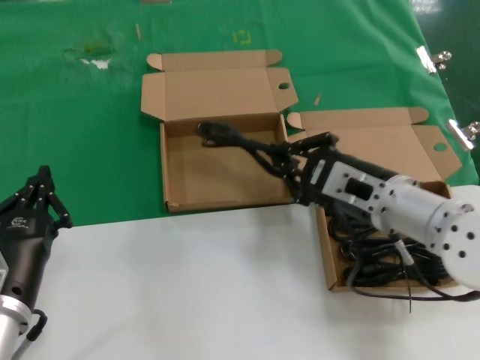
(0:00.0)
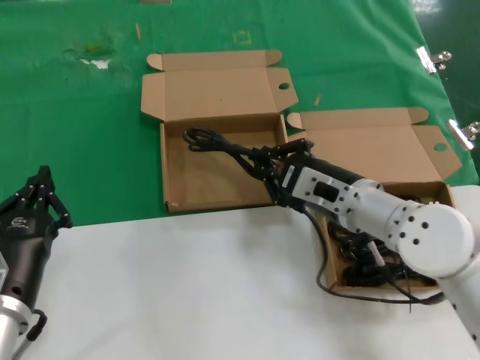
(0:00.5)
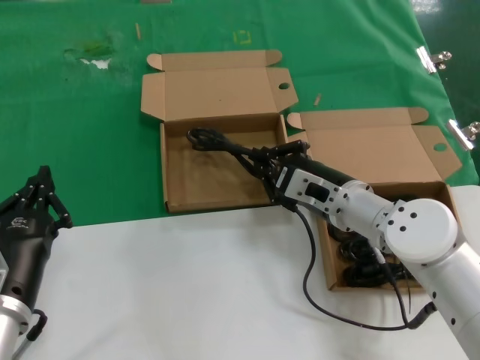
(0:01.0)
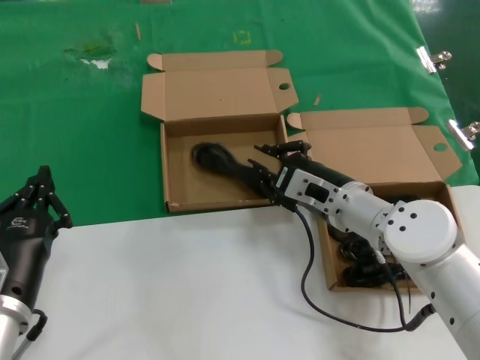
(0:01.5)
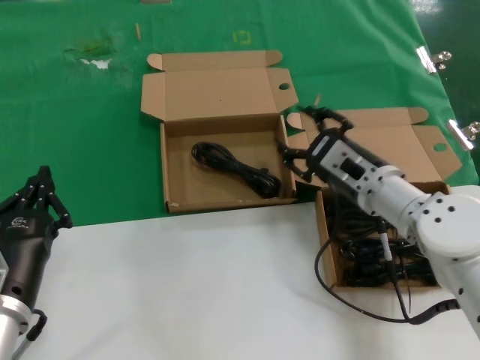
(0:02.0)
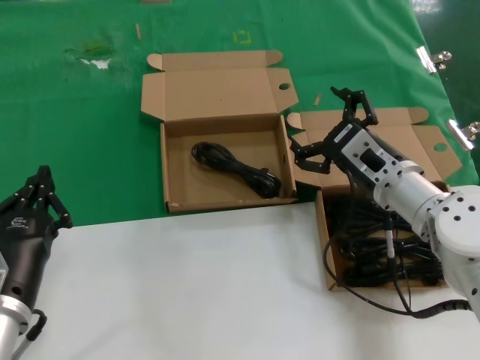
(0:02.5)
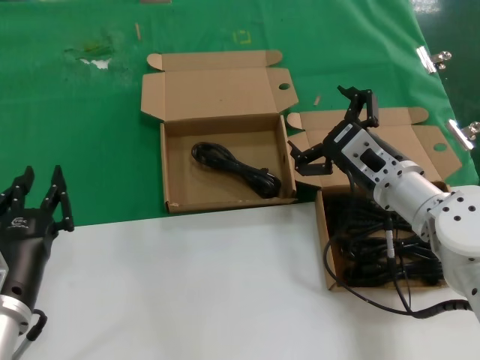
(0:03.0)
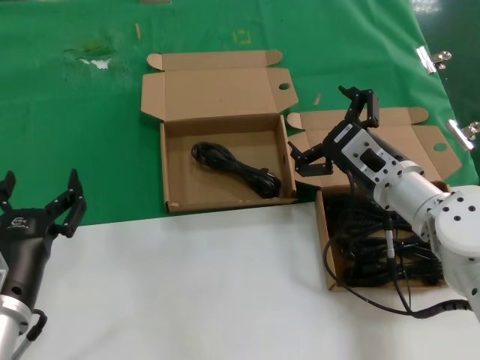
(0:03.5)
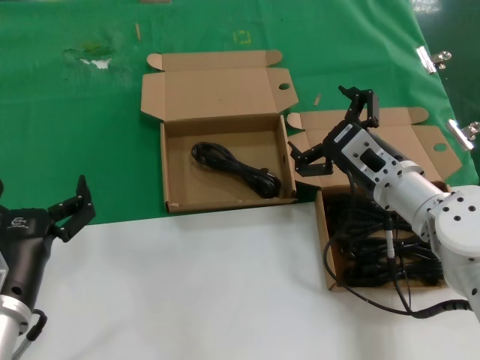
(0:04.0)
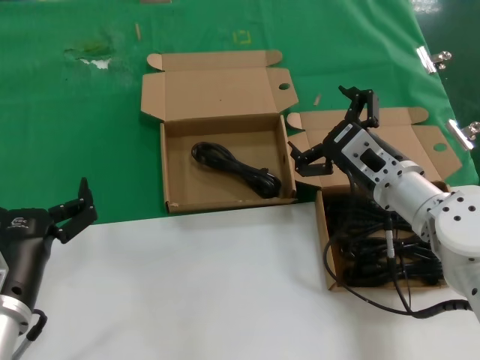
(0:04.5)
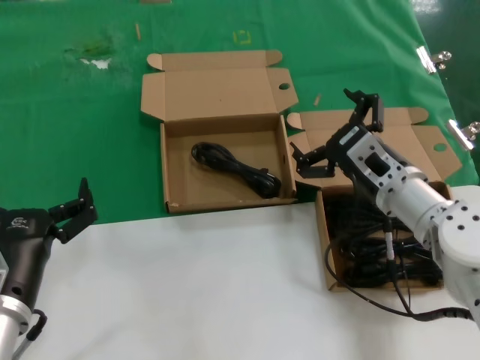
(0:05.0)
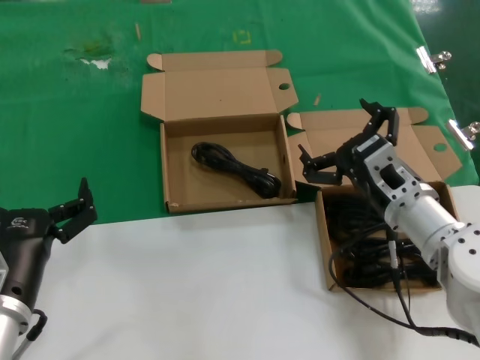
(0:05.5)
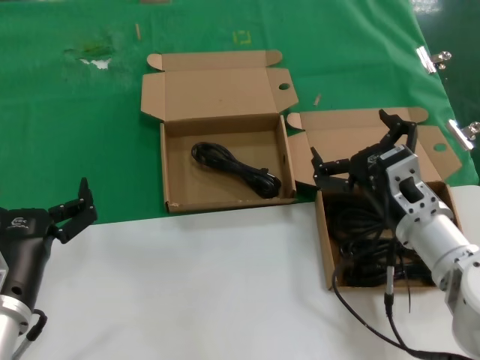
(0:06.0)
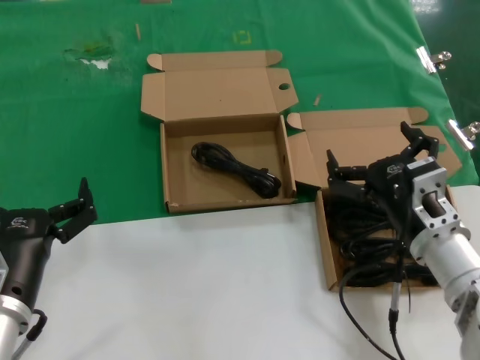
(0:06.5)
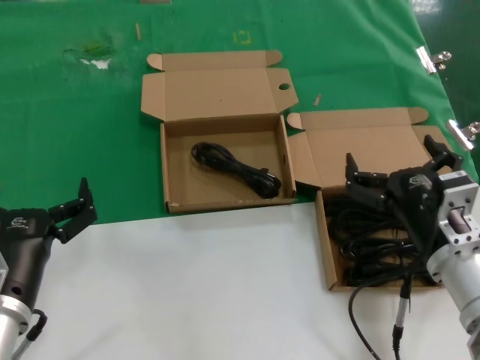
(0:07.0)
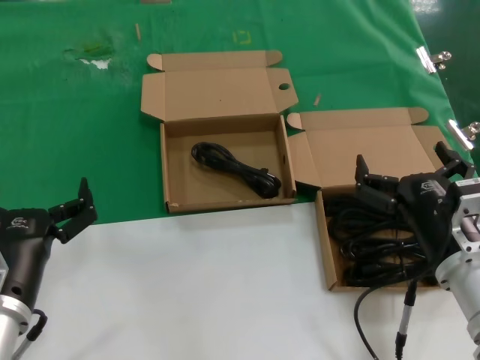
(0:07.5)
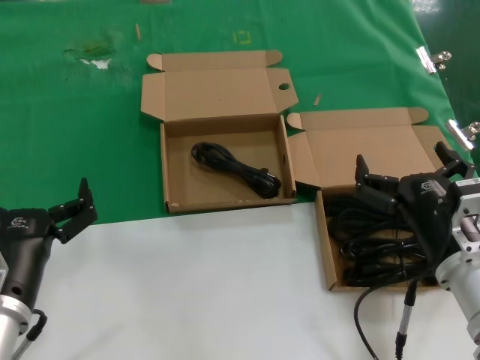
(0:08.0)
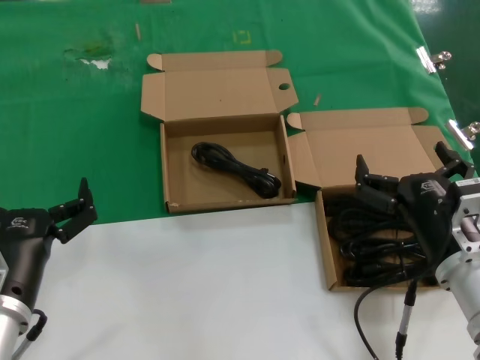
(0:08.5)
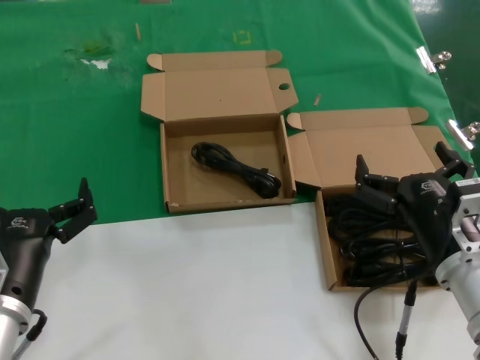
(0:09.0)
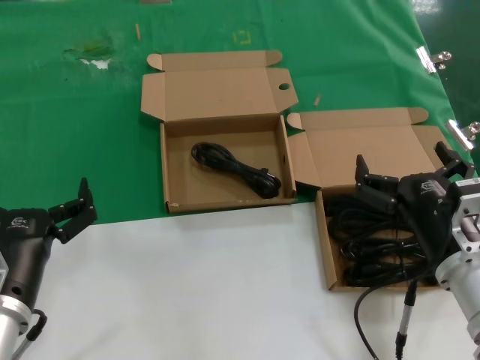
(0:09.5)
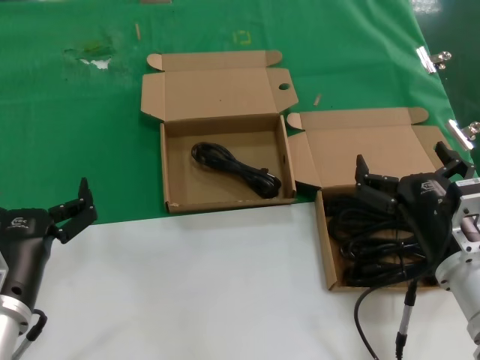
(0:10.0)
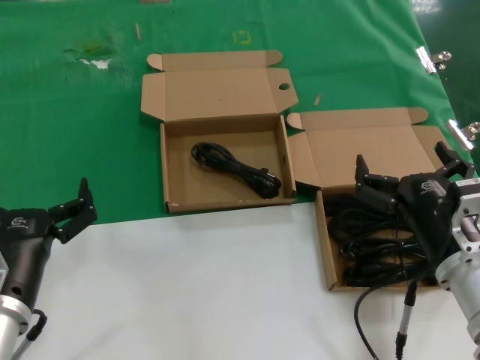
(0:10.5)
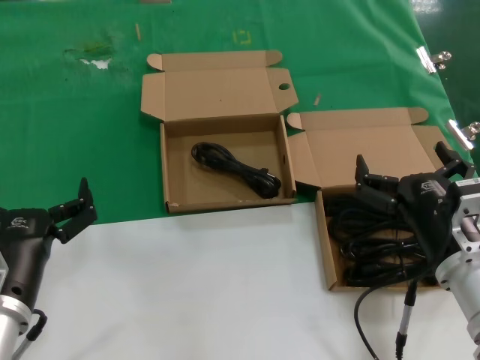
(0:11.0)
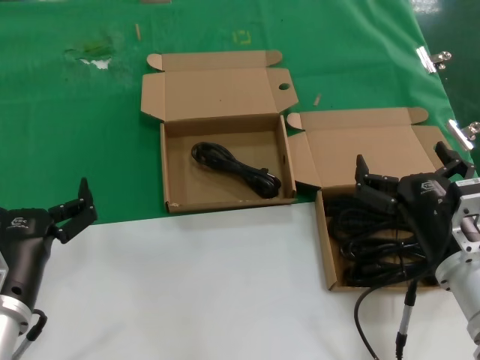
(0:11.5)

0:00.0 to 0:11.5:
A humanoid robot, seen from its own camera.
Task of the whole recording: take the parts from the box containing them and put them into an empty box.
0:00.0 to 0:02.0: The right hand is displaced forward by some 5 cm.
0:02.0 to 0:04.0: The hands move only a little.
0:04.0 to 0:06.0: The right hand goes some 5 cm backward.
0:06.0 to 0:07.5: The right hand goes about 5 cm backward.
0:07.5 to 0:11.5: Both hands stay about where they are.

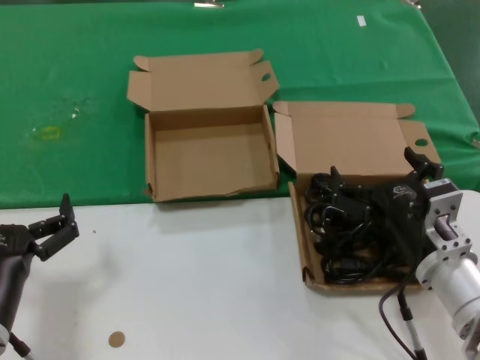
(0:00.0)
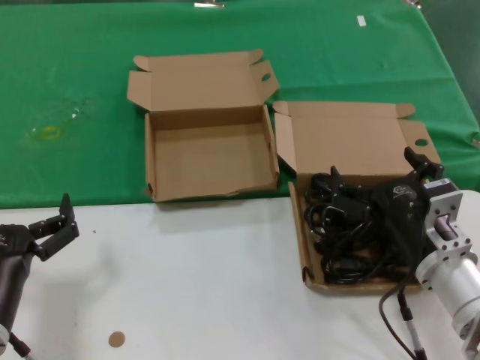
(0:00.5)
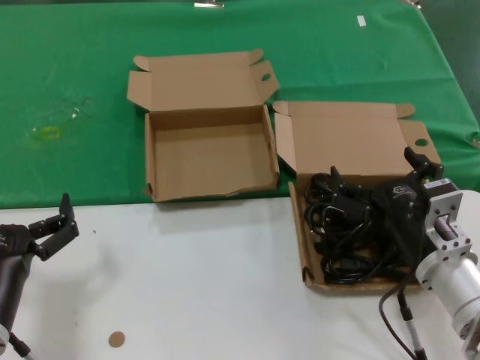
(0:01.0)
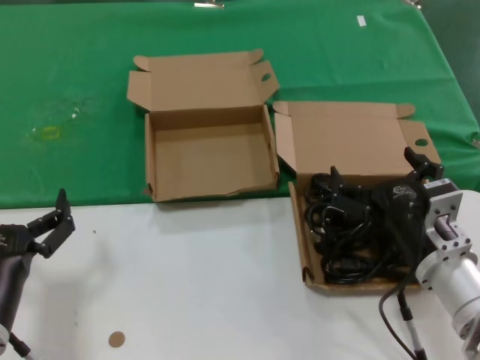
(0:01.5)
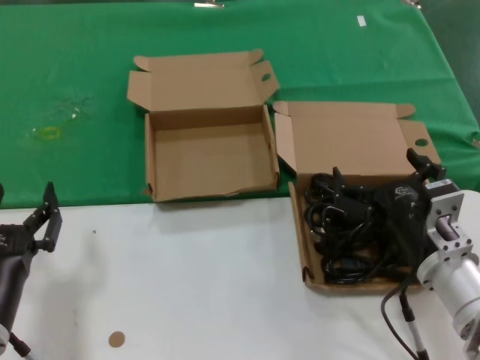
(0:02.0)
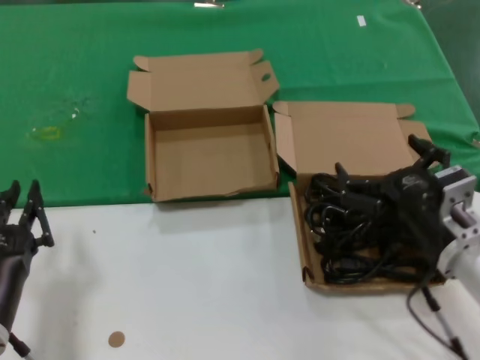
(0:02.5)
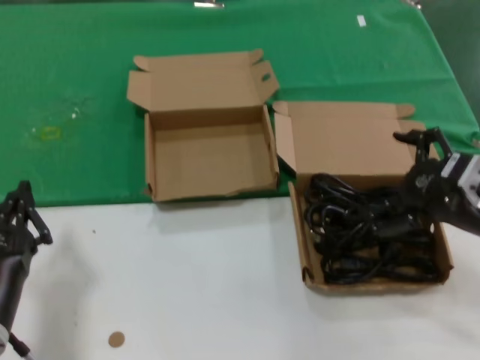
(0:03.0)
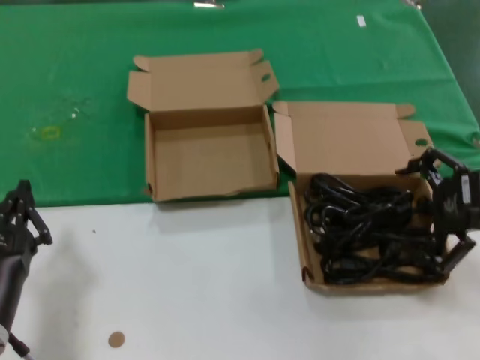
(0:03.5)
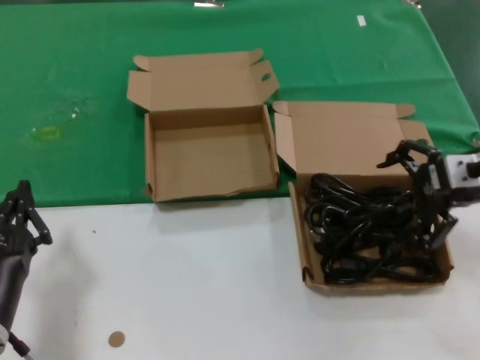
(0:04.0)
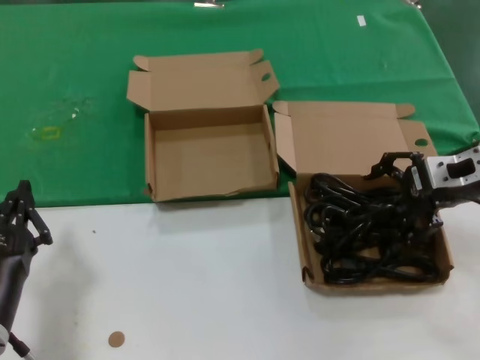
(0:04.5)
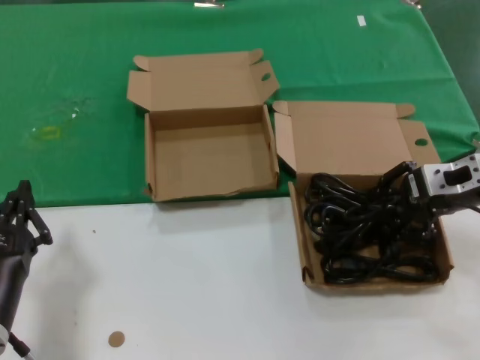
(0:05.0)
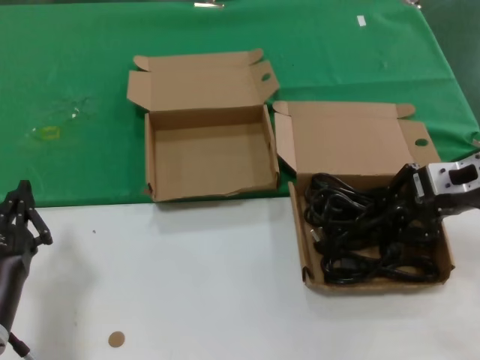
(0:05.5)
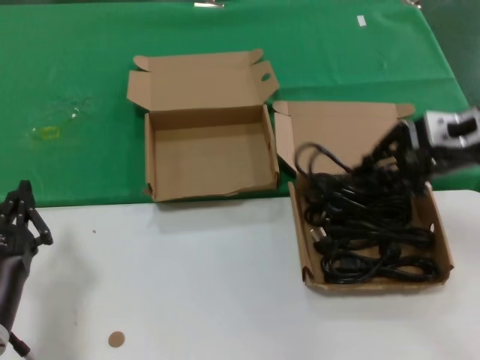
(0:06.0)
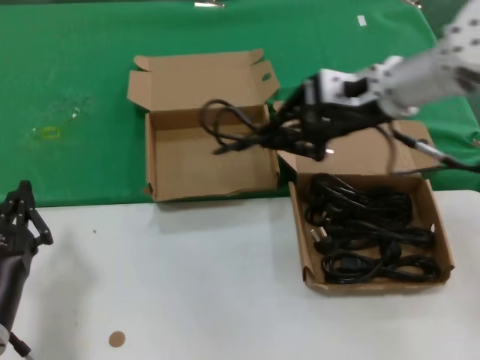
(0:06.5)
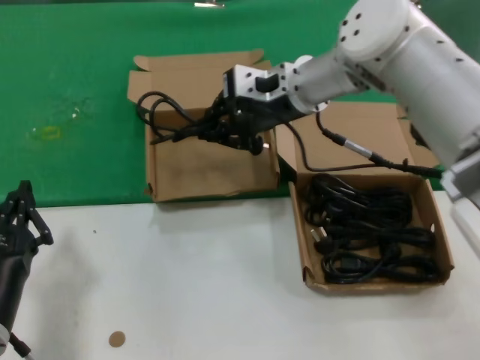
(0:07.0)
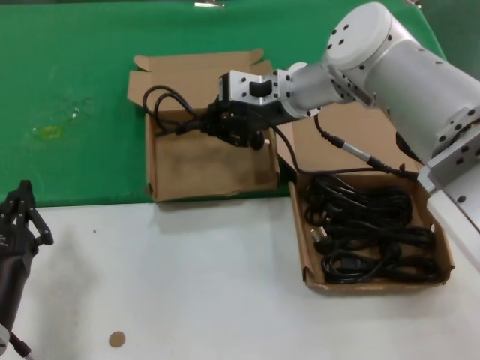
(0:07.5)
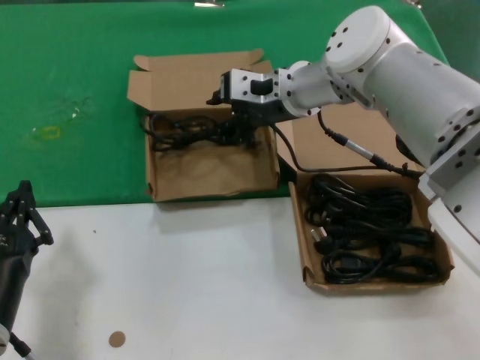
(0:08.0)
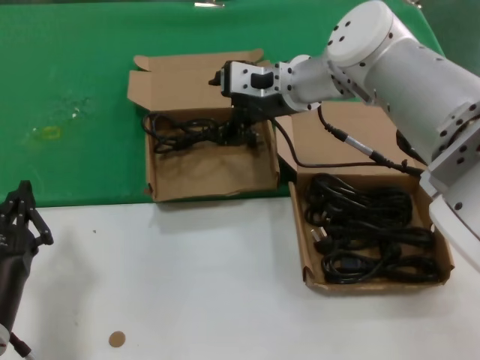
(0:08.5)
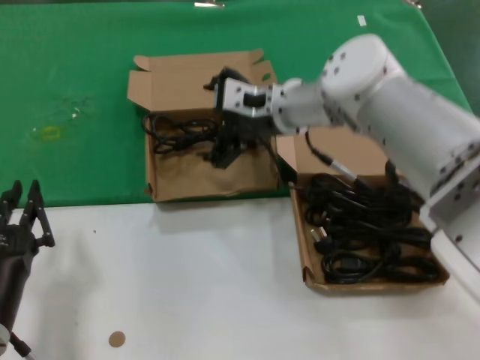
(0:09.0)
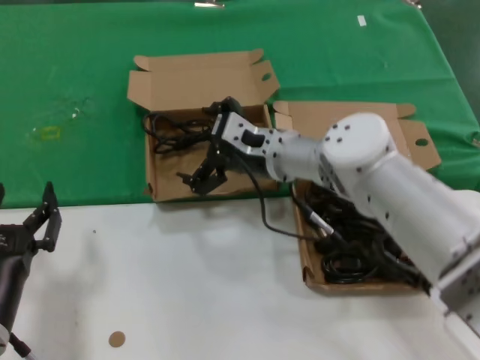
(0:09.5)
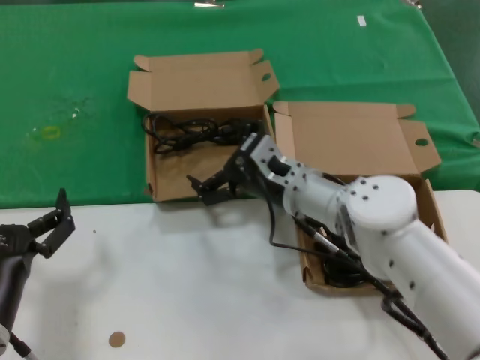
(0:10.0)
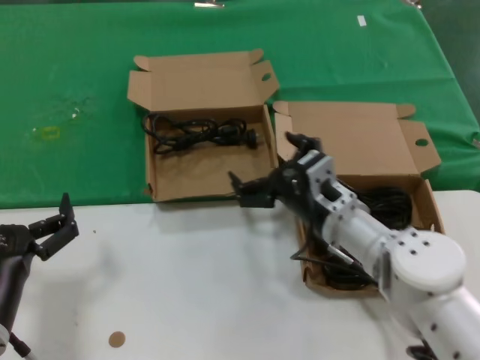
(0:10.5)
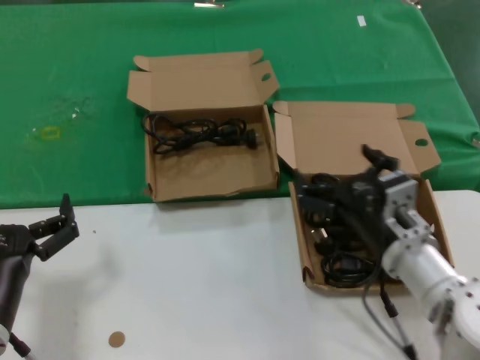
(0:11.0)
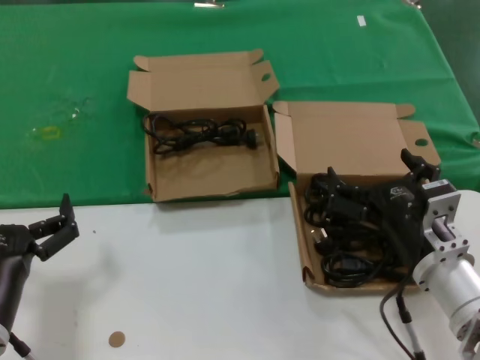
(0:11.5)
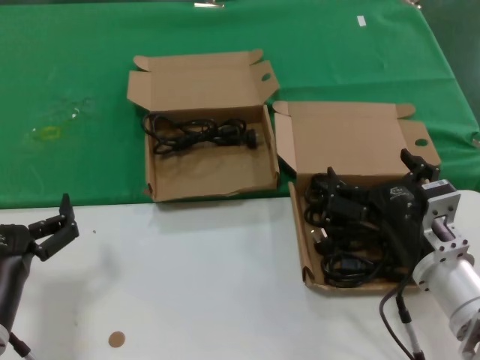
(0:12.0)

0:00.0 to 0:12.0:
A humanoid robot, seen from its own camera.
Task of the whole recording: take the parts from the box containing them and put them into an empty box.
Step, 0:00.0 to 0:05.0: Grasp the data cable.
Step, 0:05.5 to 0:08.0: Place the data cable in the another box.
0:00.0 to 0:02.0: Neither hand changes place.
0:02.0 to 0:04.0: The right hand travels upward, to the right and forward by some 20 cm.
0:04.0 to 0:06.0: The right hand shifts by approximately 5 cm.
0:06.0 to 0:08.0: The right hand goes about 25 cm to the left and forward.
0:08.0 to 0:10.0: The right hand goes about 15 cm downward and backward.
0:10.0 to 0:12.0: The right hand moves backward and to the right, approximately 20 cm.

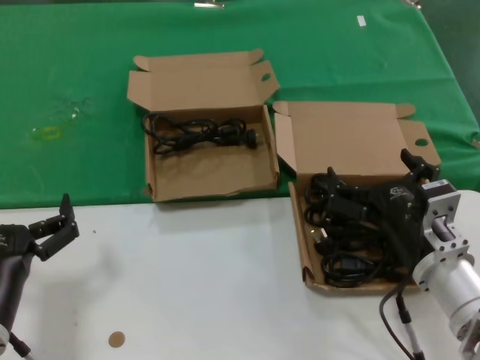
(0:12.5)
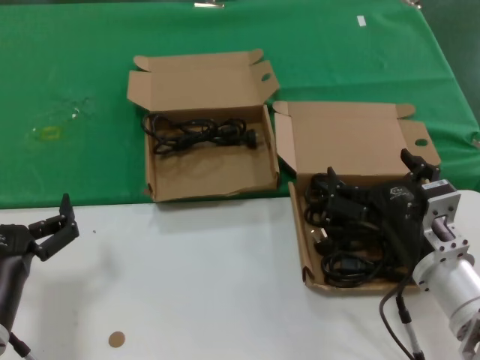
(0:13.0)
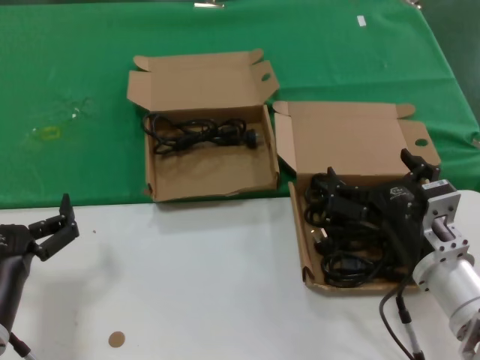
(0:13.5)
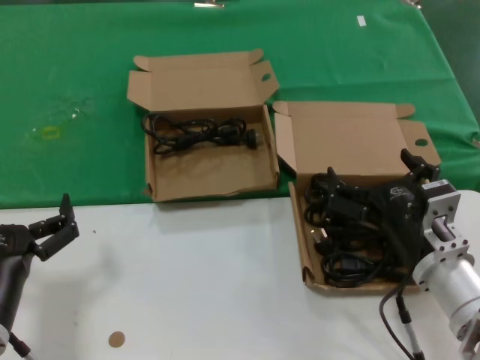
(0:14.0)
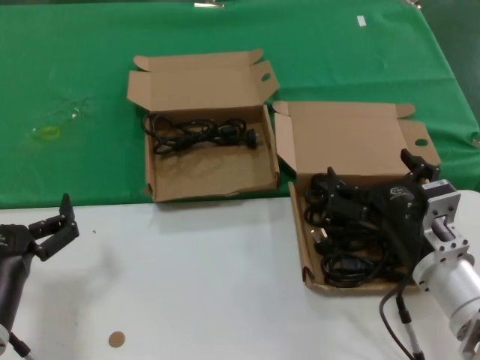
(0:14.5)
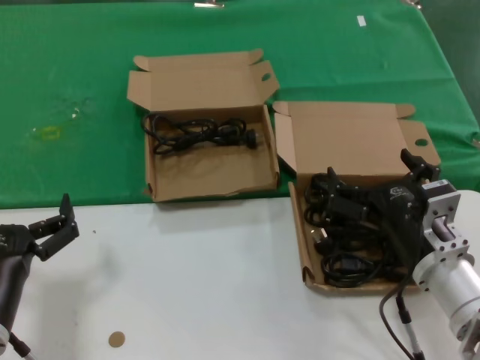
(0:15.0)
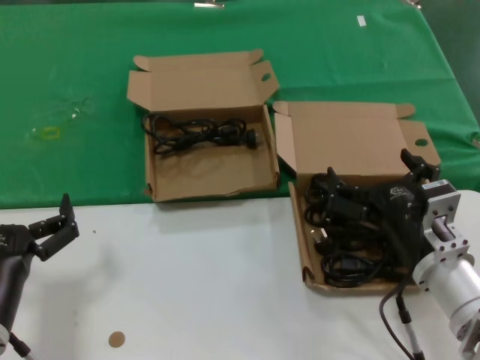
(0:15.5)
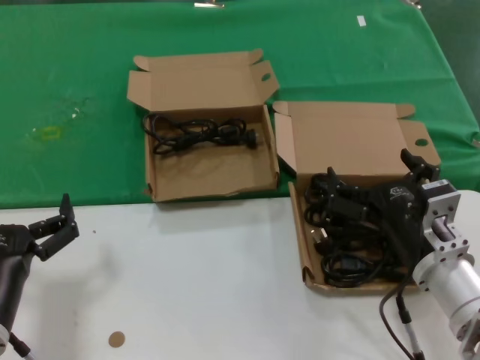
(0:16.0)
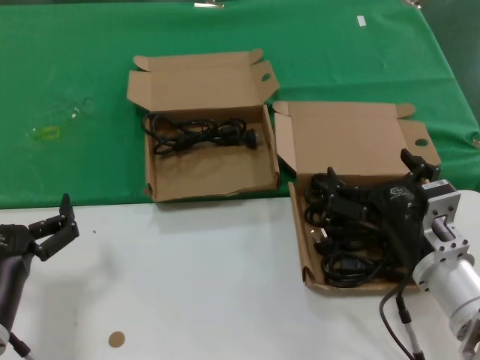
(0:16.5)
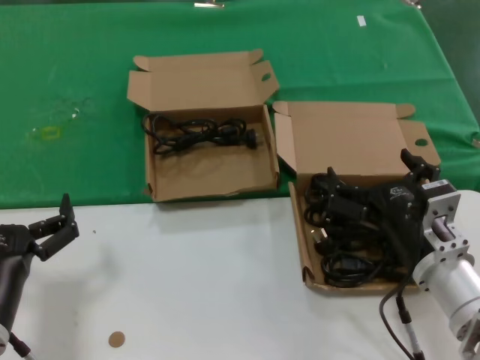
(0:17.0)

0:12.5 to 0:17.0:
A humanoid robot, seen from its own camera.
Task of the whole recording: take the parts from the box containing them and put them into an empty box.
0:12.5 to 0:17.0: Neither hand changes place.
